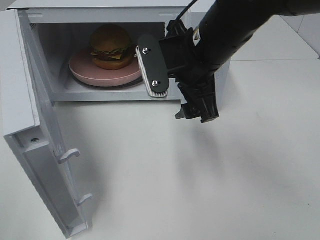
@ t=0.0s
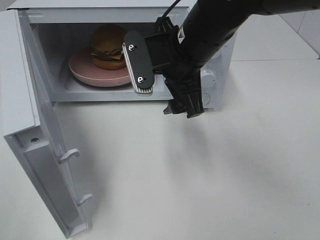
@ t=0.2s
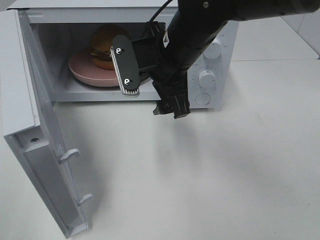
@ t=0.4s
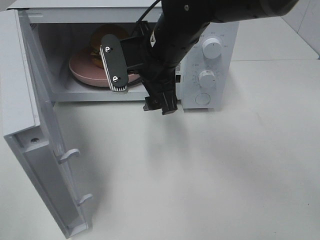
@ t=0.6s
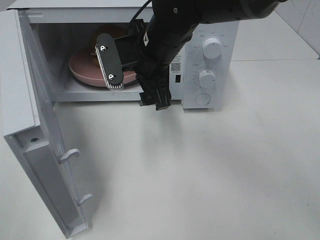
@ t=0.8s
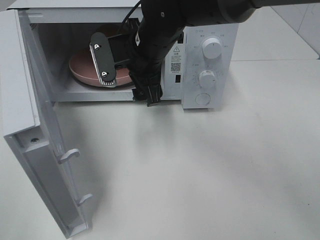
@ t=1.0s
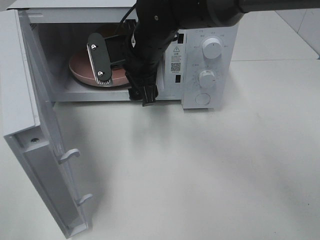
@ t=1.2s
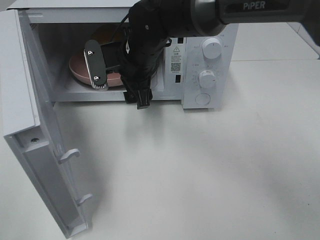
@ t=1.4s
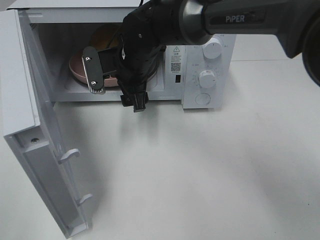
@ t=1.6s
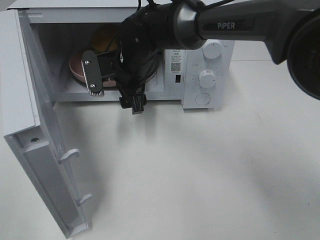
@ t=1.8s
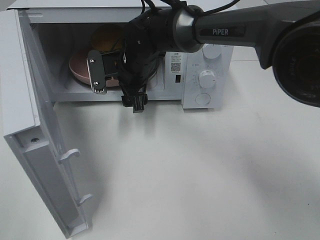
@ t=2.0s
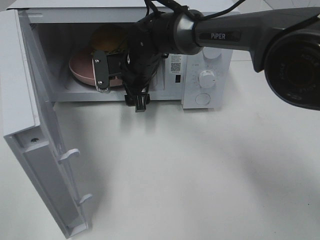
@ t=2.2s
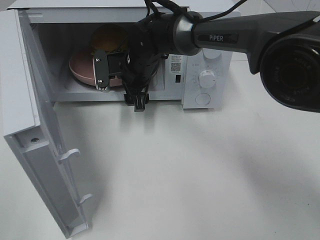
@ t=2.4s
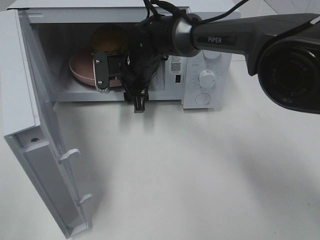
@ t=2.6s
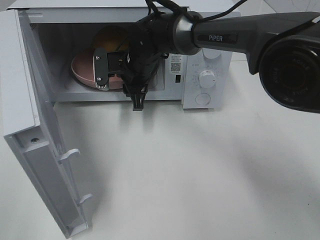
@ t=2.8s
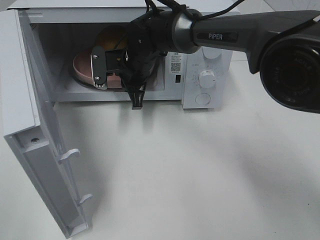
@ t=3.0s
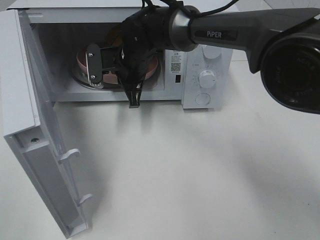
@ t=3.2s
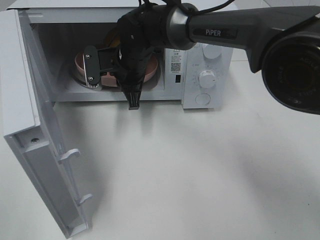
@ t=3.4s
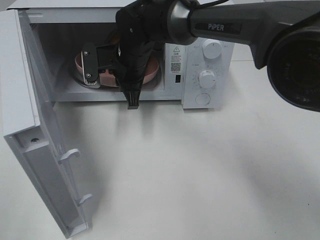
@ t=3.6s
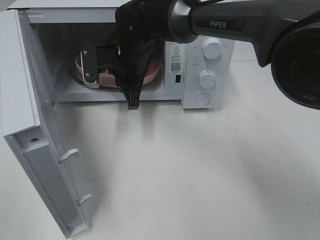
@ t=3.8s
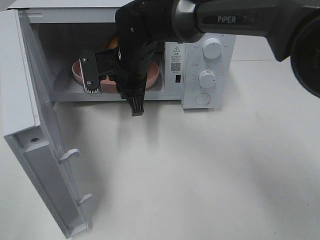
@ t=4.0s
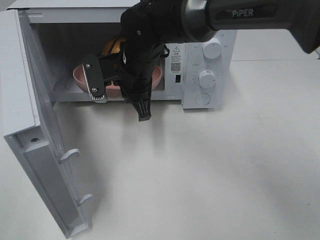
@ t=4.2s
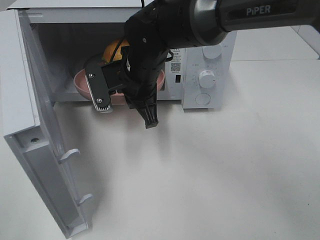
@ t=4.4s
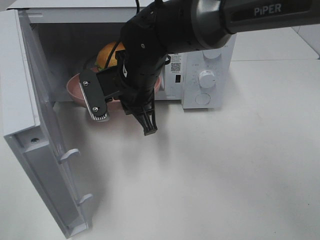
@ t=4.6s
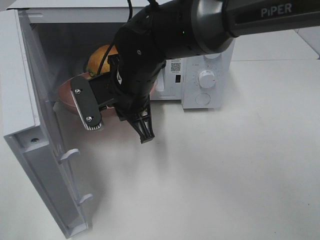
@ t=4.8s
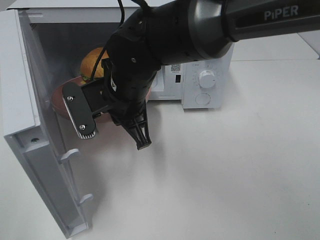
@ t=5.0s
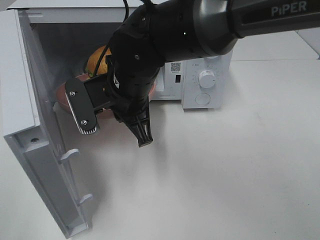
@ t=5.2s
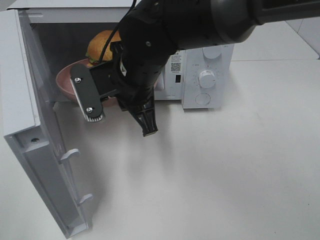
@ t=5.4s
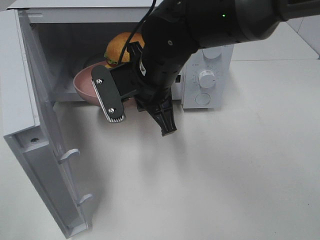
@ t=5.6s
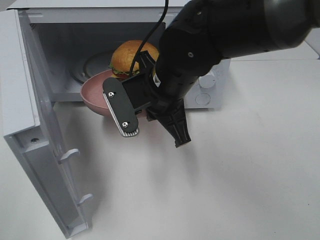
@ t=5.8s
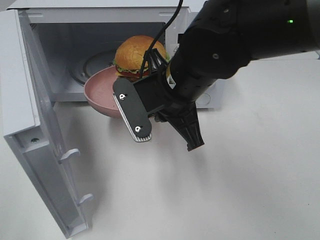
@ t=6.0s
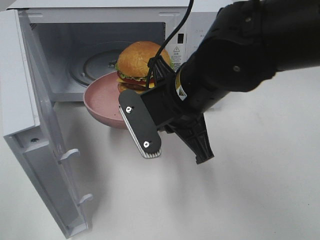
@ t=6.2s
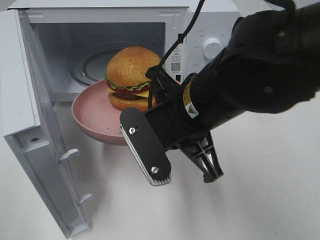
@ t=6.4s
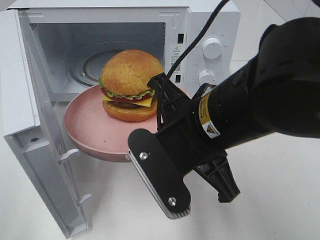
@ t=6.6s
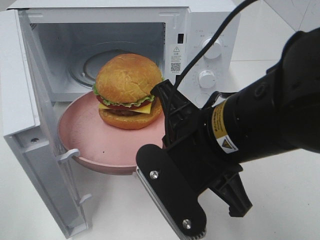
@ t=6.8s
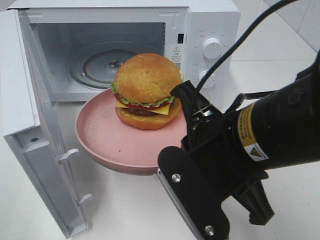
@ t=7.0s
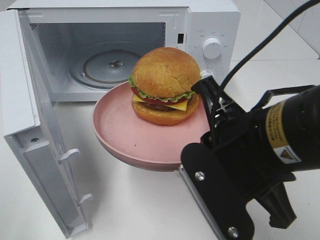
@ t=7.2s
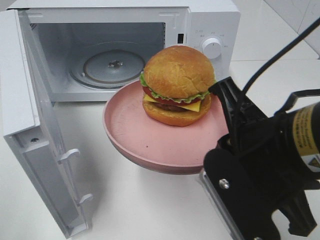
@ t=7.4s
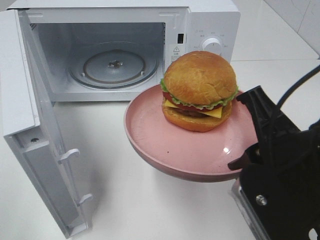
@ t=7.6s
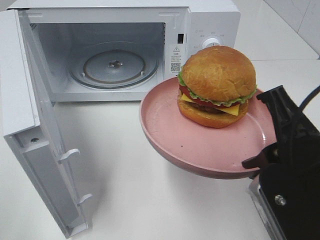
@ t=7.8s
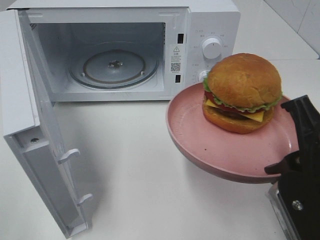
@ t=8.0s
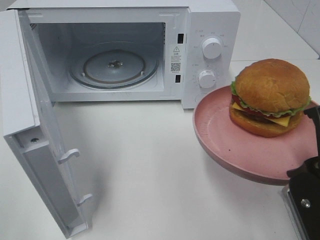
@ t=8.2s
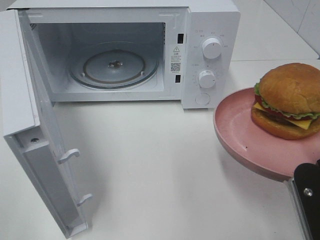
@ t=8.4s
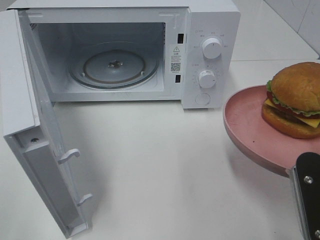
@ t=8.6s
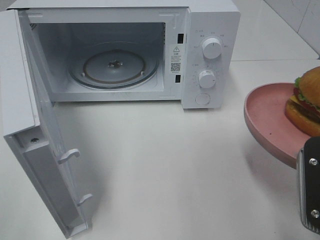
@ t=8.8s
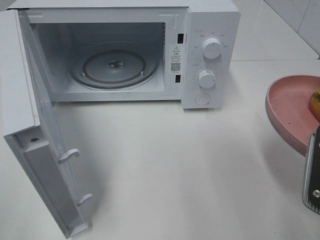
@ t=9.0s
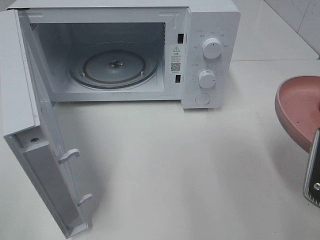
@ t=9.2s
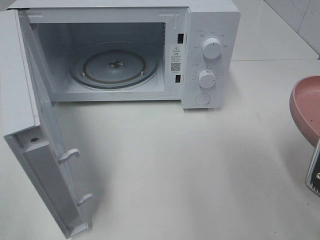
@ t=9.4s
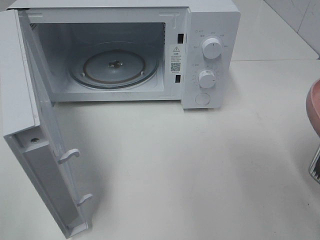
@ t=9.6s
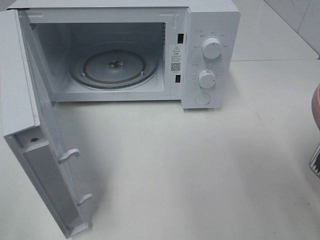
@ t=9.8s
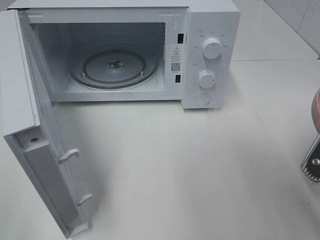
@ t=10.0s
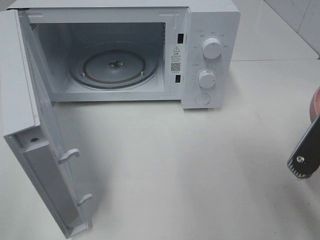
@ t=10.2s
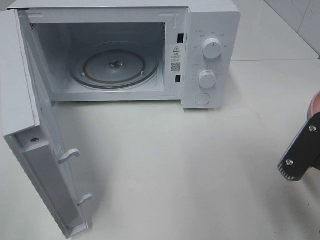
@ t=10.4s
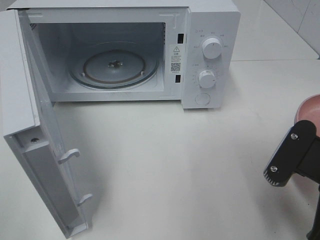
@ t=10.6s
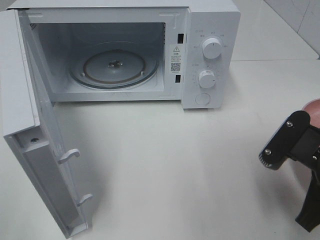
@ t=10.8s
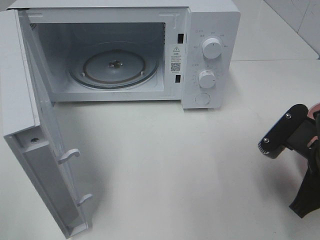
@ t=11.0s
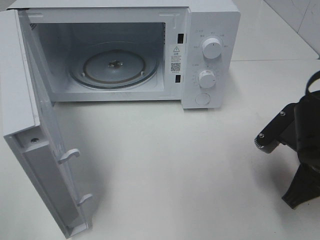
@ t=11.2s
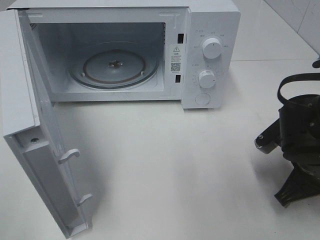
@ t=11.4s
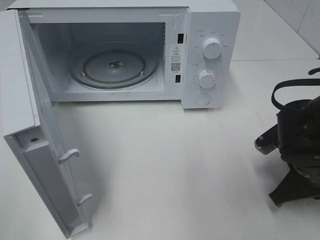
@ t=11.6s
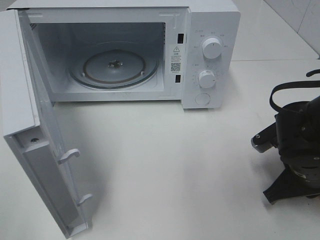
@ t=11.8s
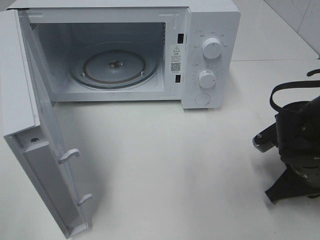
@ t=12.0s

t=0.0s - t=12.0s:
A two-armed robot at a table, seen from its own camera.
Task of the whole recording: Heat the burger.
Step, t=0.0s - t=3.2s: Right hand: grab the plate with the hamburger.
t=0.0s - t=1.6s: The right gripper shifts about 15 cm to the left, forward and downward.
t=1.6s - t=3.0s: The right gripper closes its fingers.
t=3.0s - t=4.4s: The right gripper heads backward, covering about 10 cm.
t=4.4s - t=6.0s: The right gripper goes approximately 10 cm backward and to the right.
t=6.0s - t=7.6s: The right gripper heads backward and to the right, covering some 20 cm.
t=7.6s - t=9.0s: The right gripper goes some 10 cm to the right.
t=10.4s - t=12.0s: The right gripper is displaced forward and downward by about 15 cm.

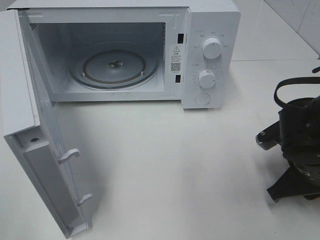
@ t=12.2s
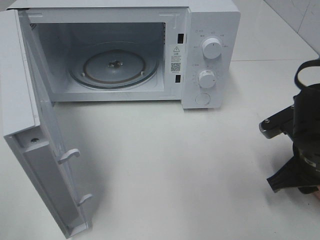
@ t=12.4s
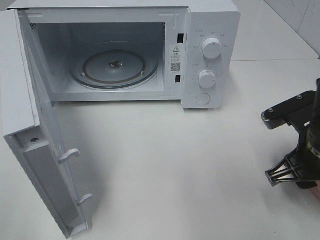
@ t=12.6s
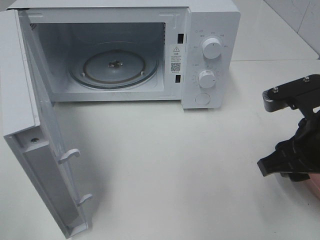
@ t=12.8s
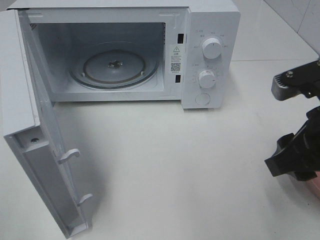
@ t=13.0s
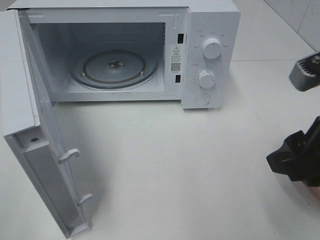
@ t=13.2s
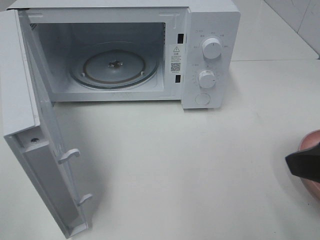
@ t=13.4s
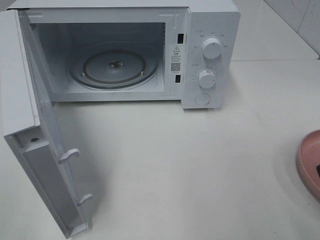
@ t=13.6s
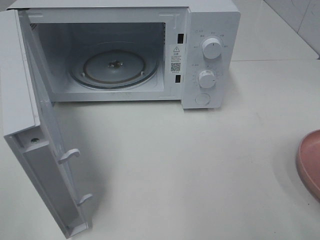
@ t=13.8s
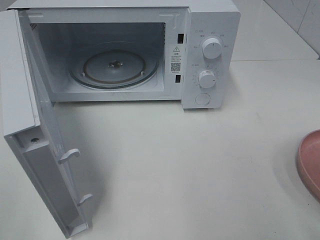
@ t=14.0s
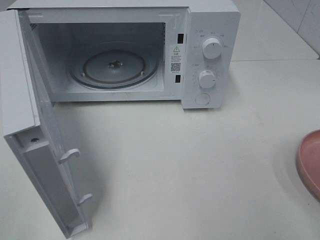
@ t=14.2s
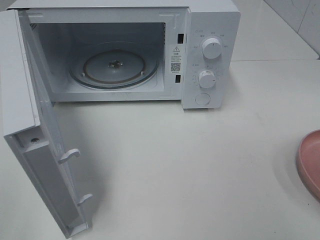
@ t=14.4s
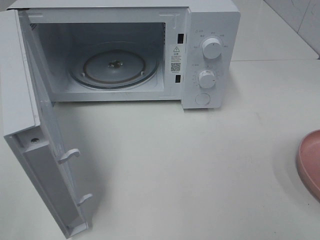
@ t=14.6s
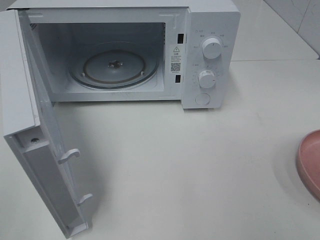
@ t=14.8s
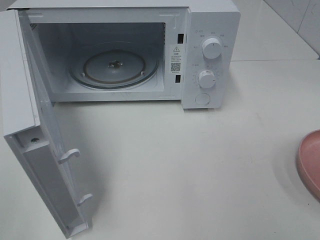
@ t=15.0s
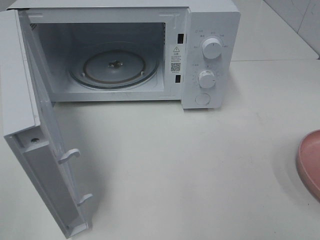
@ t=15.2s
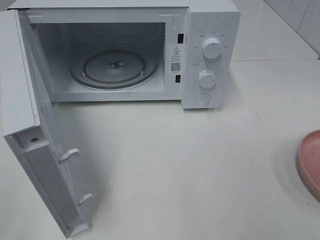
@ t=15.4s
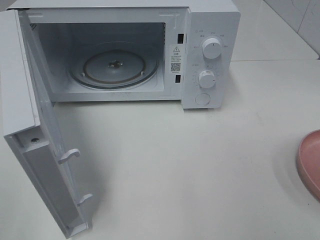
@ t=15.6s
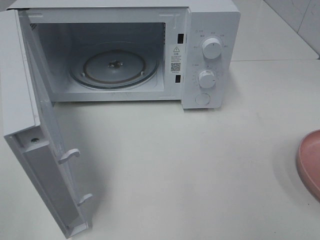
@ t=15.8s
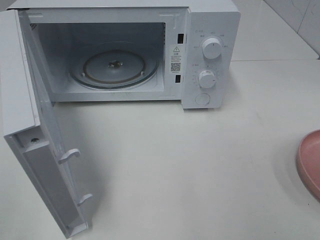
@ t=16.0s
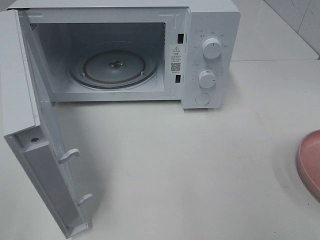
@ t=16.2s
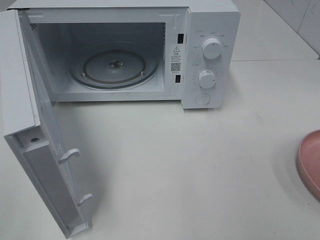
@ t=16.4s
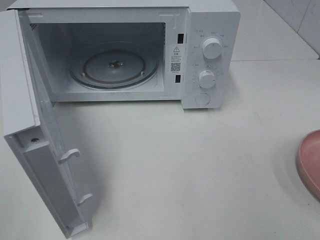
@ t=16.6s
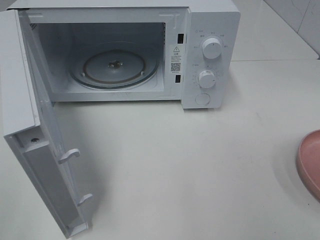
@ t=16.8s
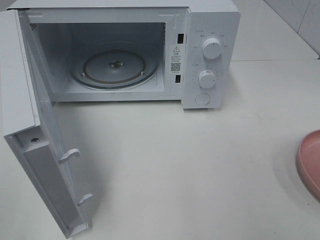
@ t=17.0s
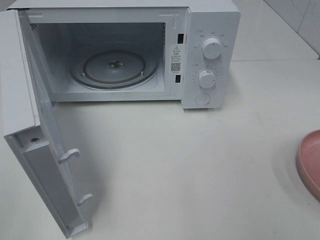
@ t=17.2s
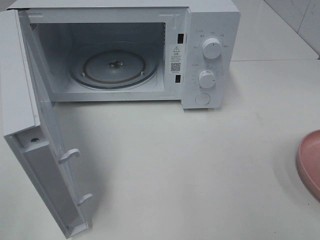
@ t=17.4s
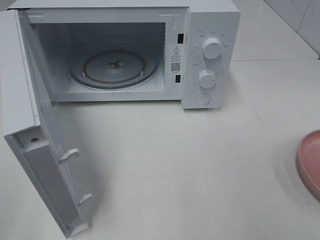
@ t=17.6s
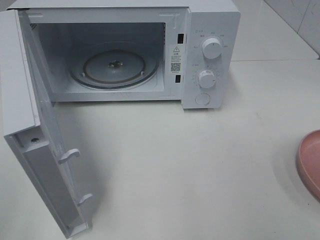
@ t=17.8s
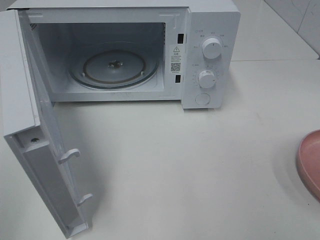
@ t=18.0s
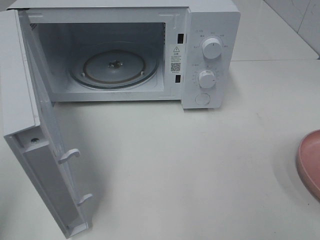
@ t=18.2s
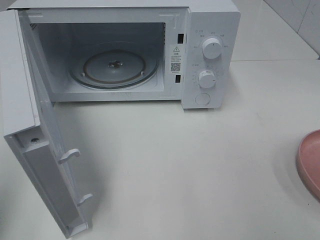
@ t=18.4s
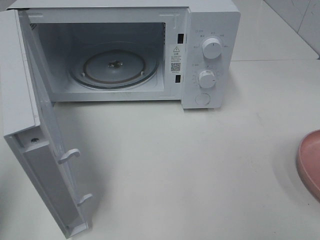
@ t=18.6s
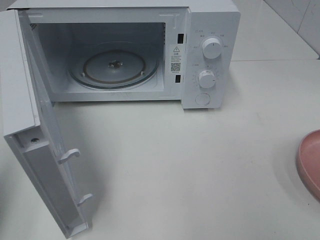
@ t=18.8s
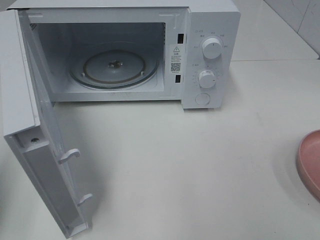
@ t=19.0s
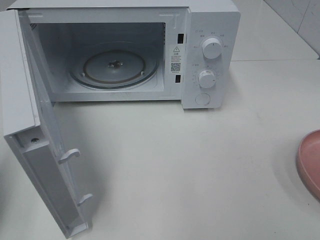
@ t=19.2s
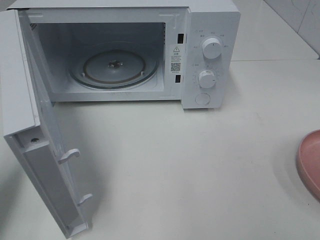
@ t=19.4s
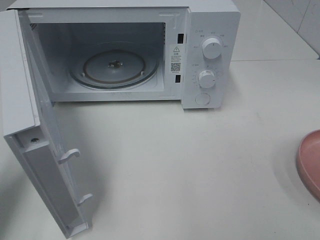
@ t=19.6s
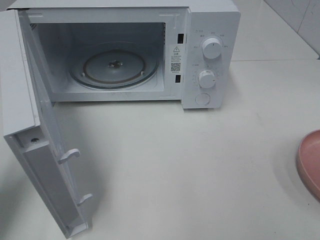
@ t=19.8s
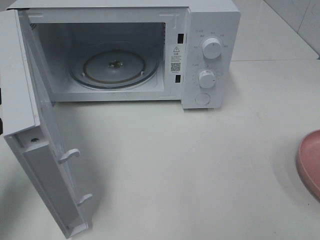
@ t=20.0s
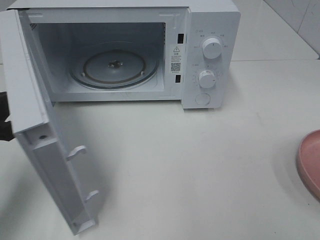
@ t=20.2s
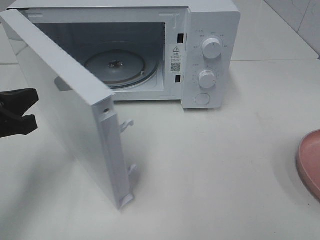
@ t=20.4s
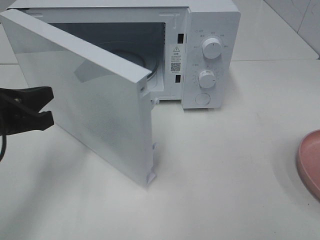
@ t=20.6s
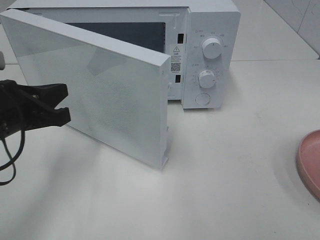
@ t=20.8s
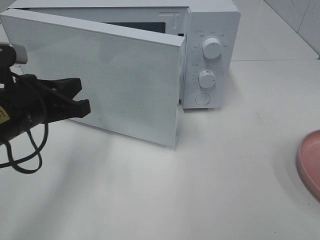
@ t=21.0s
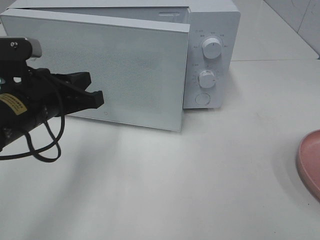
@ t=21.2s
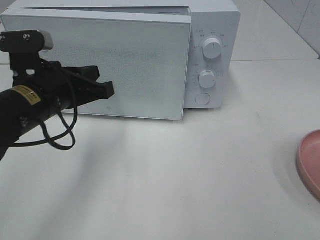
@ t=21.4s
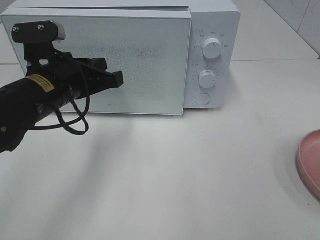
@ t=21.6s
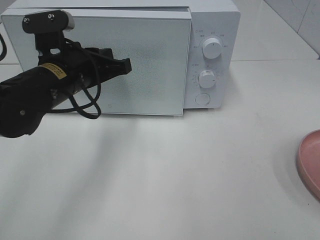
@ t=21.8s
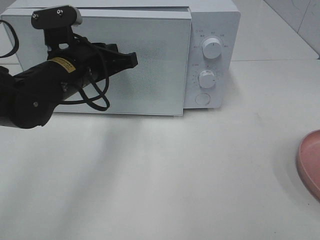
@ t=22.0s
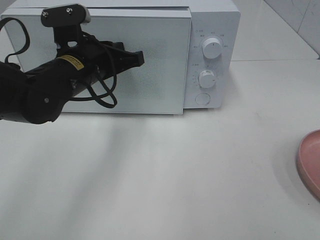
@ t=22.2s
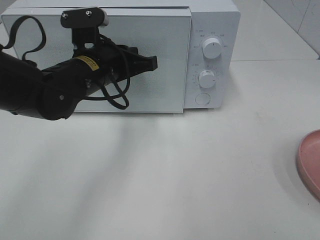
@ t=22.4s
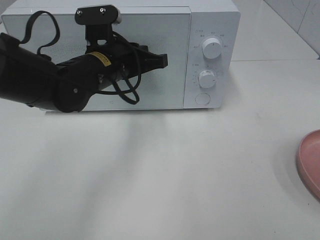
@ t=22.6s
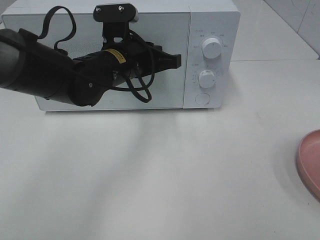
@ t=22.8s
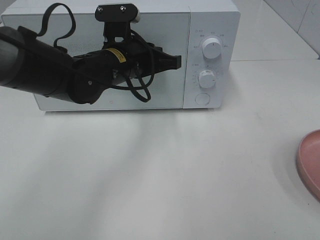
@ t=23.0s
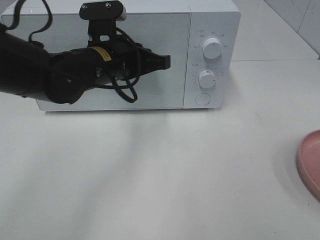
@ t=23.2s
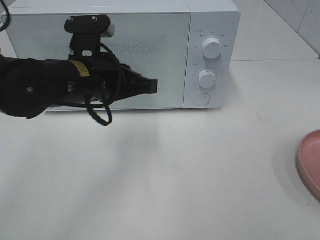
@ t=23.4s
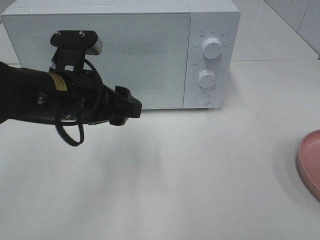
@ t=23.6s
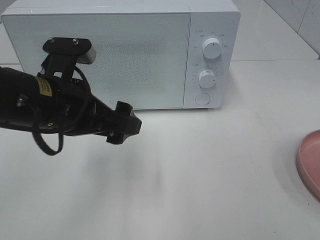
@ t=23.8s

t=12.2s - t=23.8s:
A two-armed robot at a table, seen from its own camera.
Task of the whole recording: Heat the burger.
Step, t=12.6s - t=23.0s: Left hand: close the microwave door.
t=12.2s - t=13.6s: The right gripper moves upward and backward, approximately 20 cm, and opens its fingers.
t=15.0s - t=16.6s: The two grippers keep their place.
t=18.0s - t=19.4s: The left gripper goes roughly 15 cm forward and downward, and closes up.
t=19.4s - t=21.0s: The left gripper is displaced to the right and forward by approximately 15 cm.
t=21.0s - t=22.4s: The left gripper shifts roughly 15 cm to the right and forward.
t=22.4s - t=23.8s: The left gripper is displaced backward by some 10 cm, and opens its fingers.
